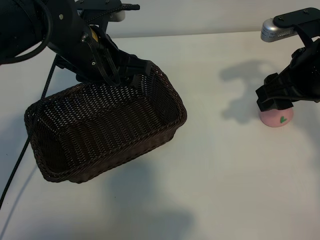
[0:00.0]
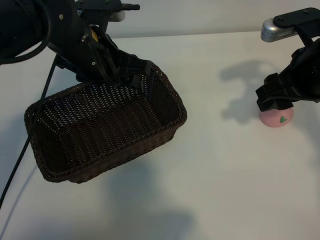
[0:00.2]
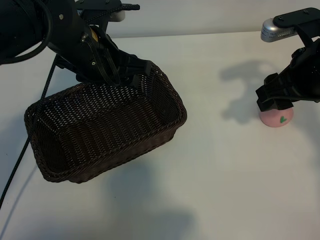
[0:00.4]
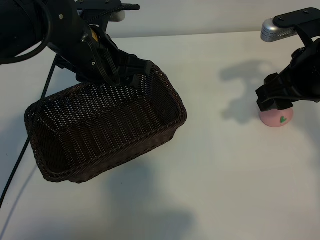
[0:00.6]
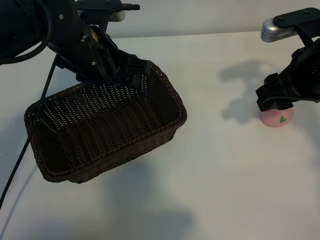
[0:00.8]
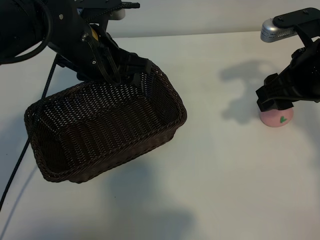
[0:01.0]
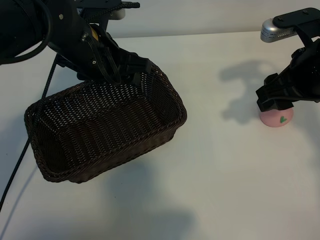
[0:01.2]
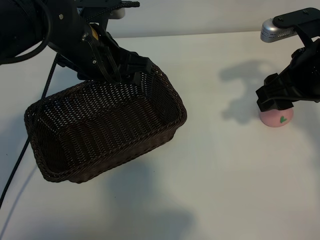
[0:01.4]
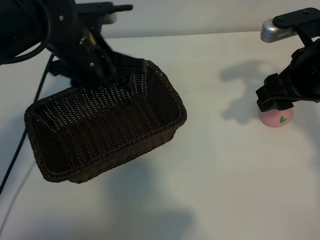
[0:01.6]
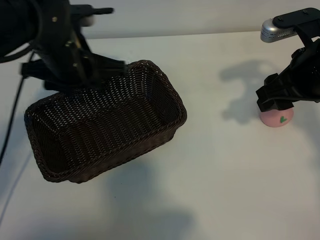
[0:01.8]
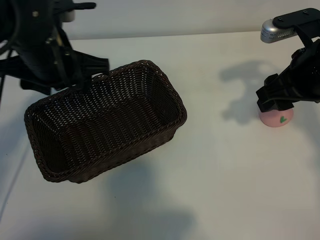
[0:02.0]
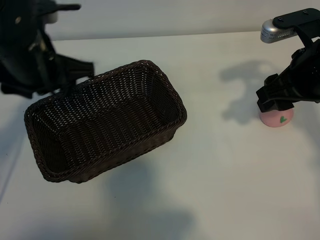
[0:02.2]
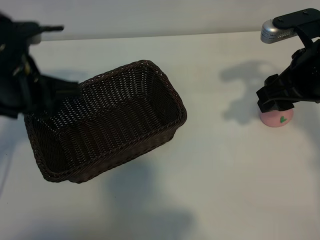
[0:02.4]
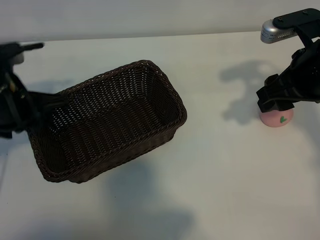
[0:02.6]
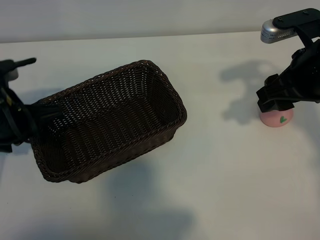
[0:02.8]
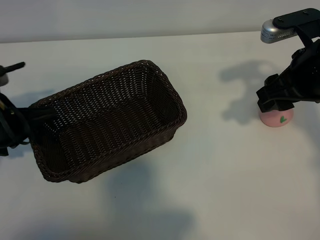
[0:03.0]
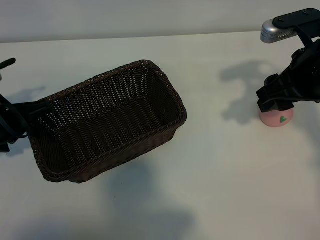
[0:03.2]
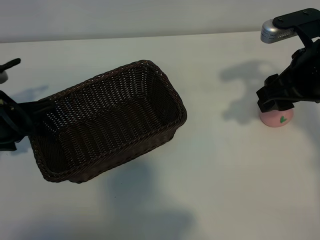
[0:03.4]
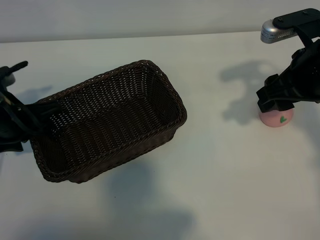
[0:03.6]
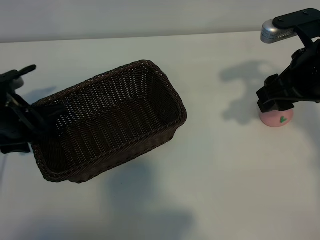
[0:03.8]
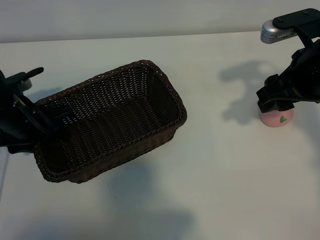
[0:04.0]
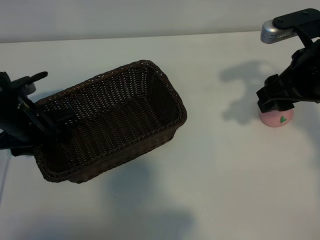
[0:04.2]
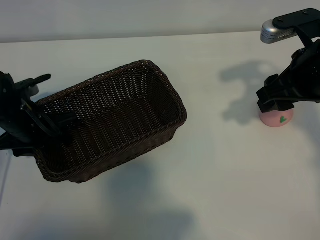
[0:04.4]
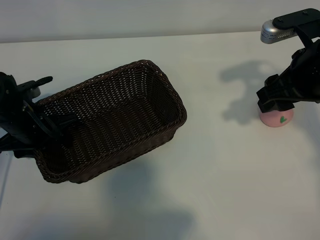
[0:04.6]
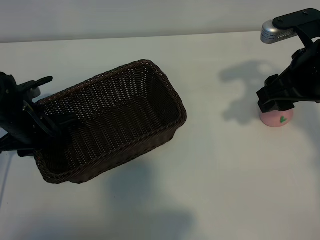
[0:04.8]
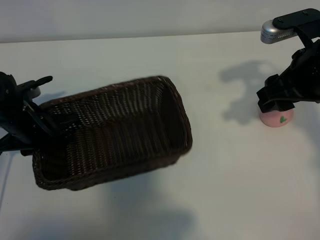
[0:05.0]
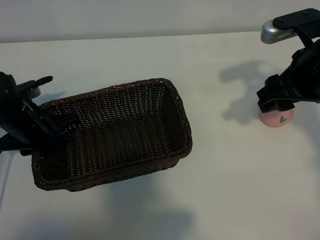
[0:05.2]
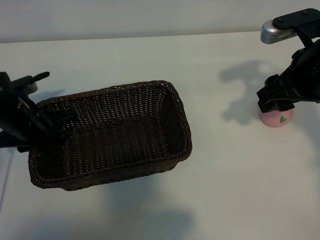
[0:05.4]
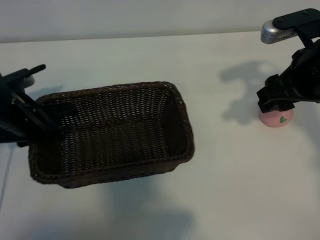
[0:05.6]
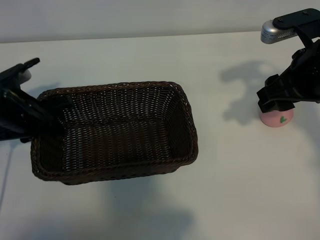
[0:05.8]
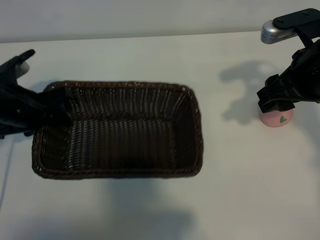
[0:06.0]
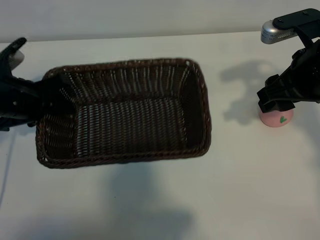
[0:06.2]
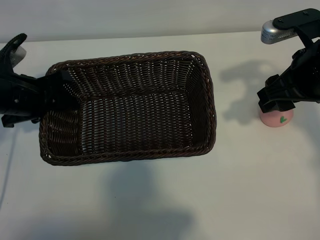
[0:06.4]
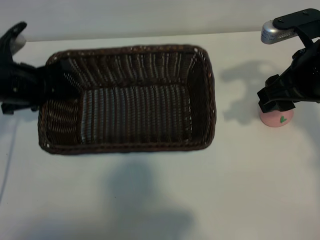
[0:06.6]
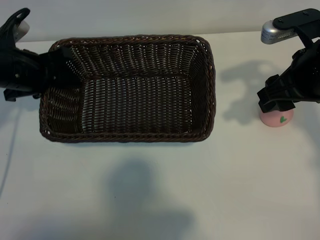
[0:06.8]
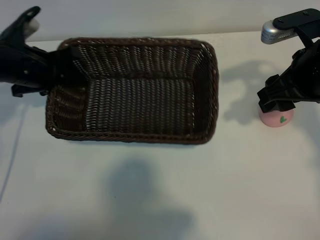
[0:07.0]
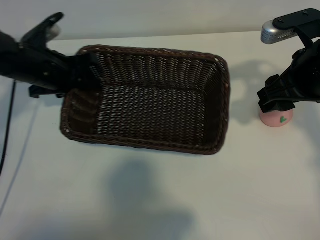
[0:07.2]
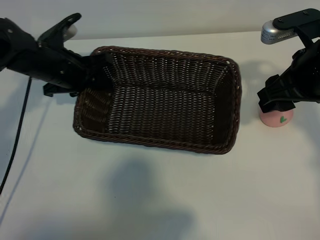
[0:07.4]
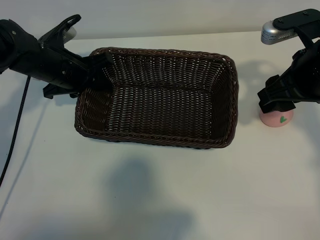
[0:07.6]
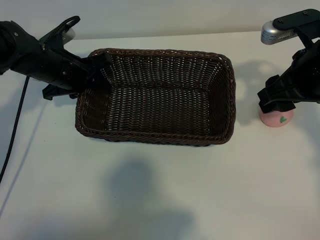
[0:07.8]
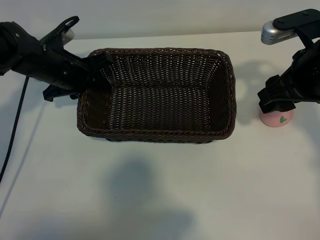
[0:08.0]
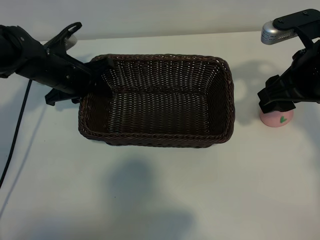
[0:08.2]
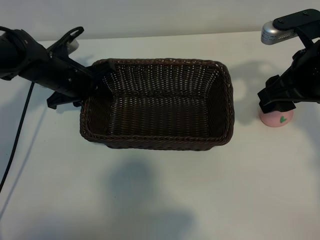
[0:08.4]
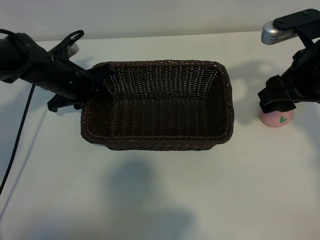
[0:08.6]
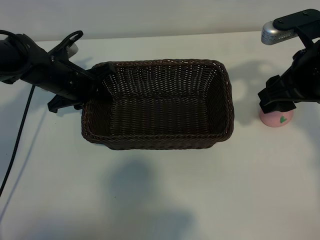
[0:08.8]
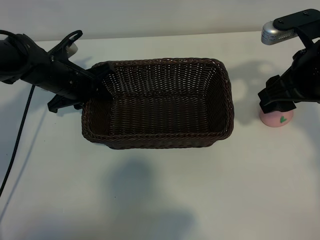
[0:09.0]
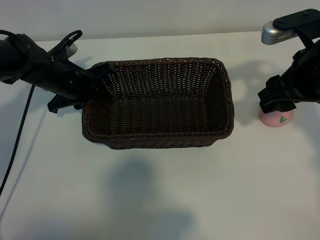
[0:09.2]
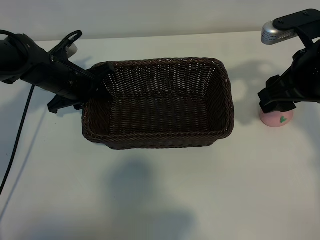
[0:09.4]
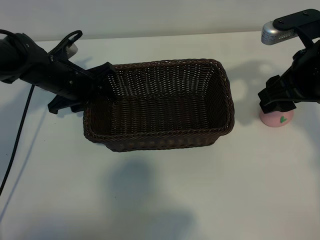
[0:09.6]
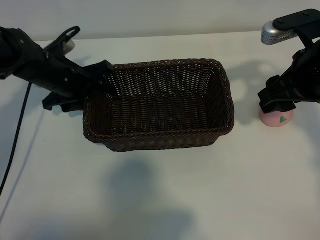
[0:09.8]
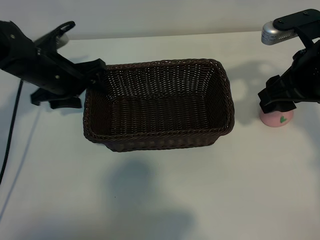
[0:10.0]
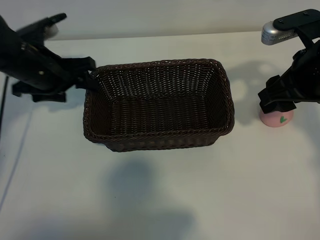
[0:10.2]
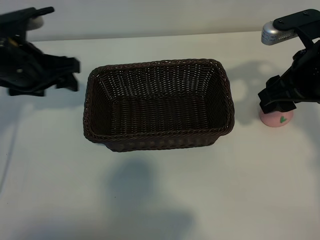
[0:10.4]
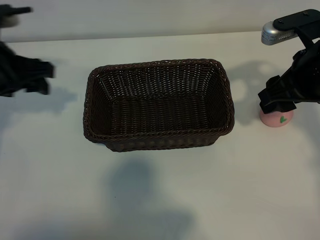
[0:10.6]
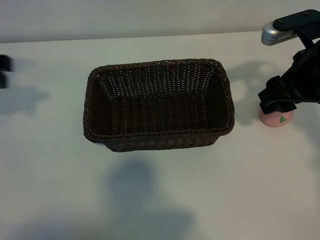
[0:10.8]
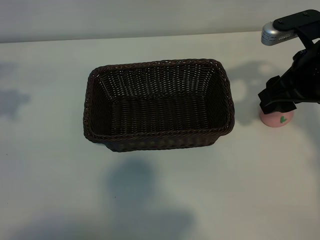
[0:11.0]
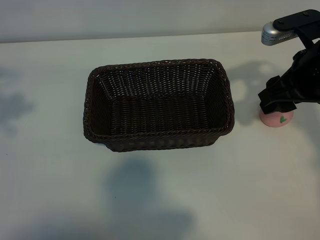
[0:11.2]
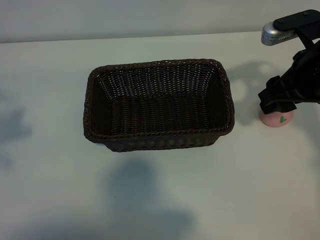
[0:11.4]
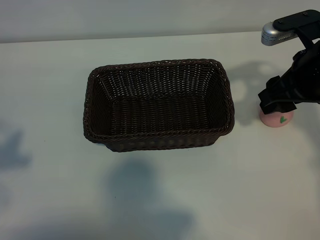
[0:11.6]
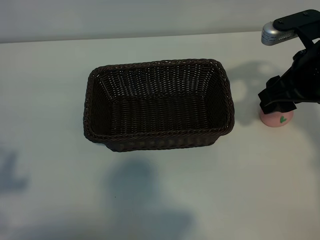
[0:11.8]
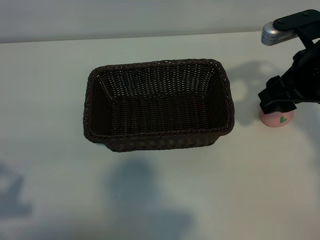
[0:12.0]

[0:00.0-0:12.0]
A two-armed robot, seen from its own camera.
Task of the whole recording: pick up the peach and put it into the basket.
Step, 0:01.0 to 0:05.0: Grasp the basket with left gripper.
Step, 0:05.4 to 0:10.0: Place the basket in the center of view with left gripper.

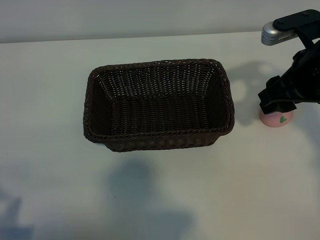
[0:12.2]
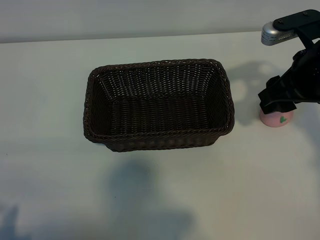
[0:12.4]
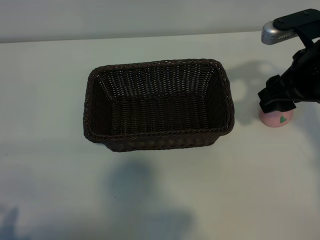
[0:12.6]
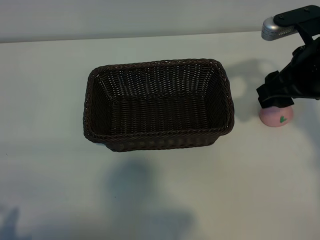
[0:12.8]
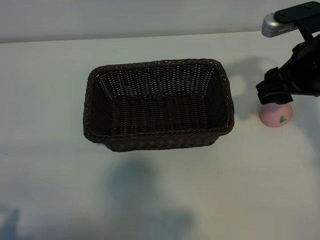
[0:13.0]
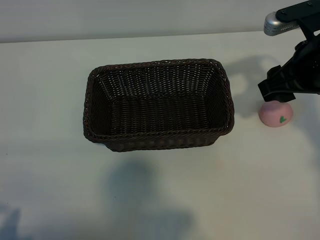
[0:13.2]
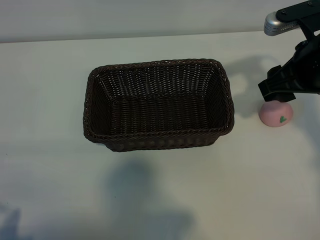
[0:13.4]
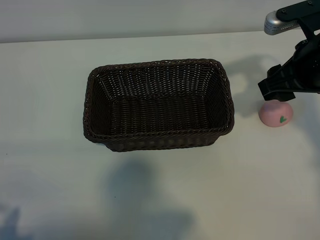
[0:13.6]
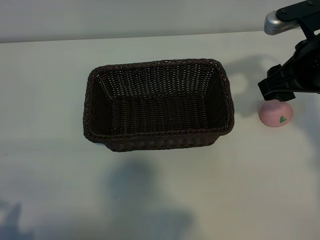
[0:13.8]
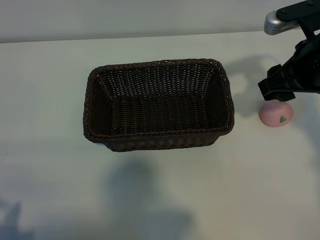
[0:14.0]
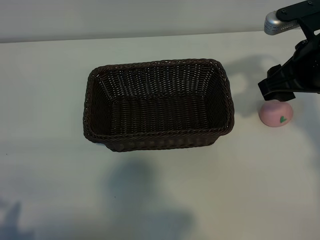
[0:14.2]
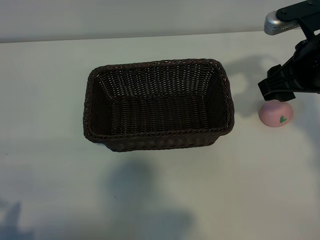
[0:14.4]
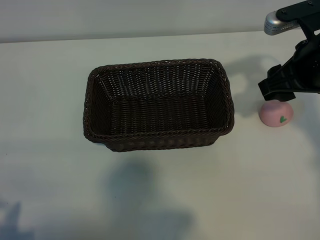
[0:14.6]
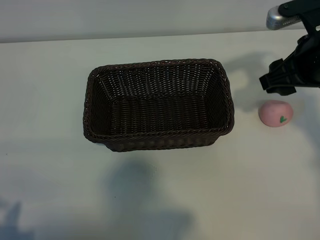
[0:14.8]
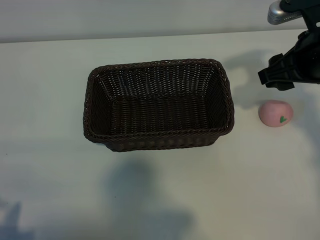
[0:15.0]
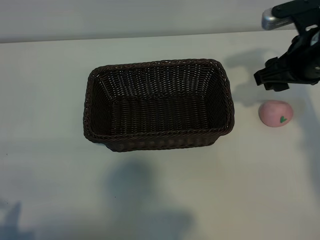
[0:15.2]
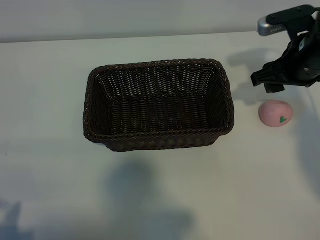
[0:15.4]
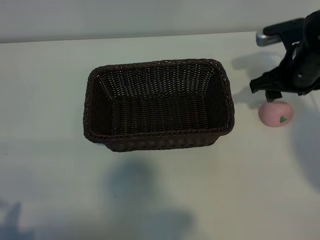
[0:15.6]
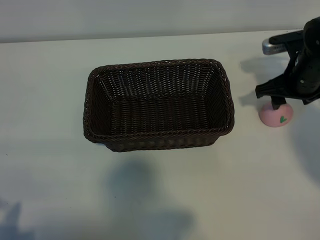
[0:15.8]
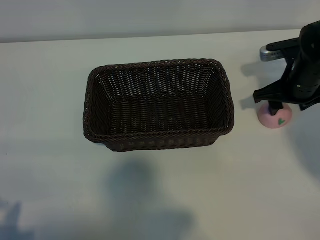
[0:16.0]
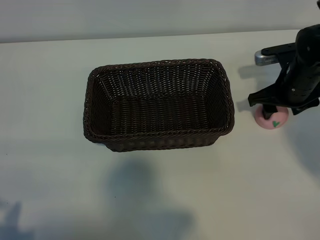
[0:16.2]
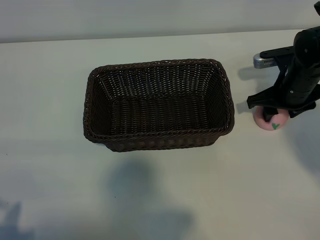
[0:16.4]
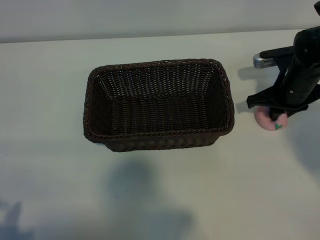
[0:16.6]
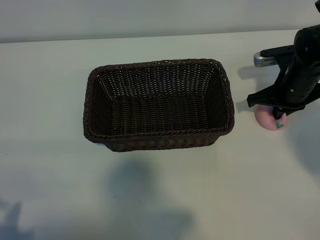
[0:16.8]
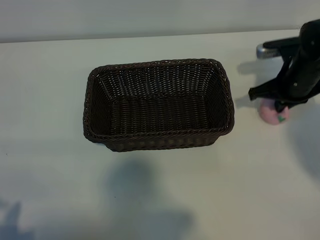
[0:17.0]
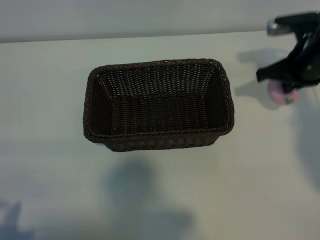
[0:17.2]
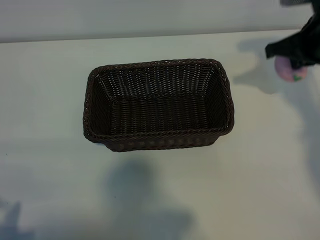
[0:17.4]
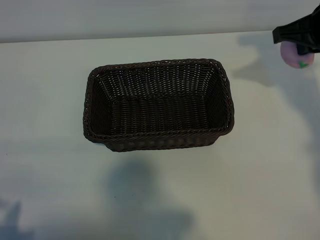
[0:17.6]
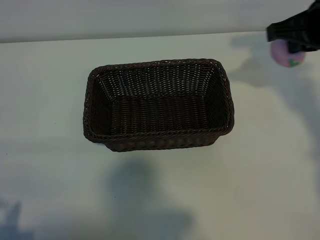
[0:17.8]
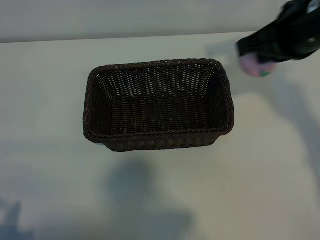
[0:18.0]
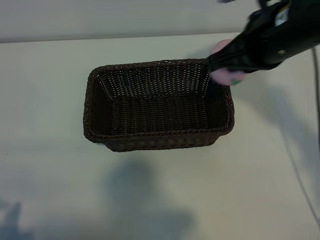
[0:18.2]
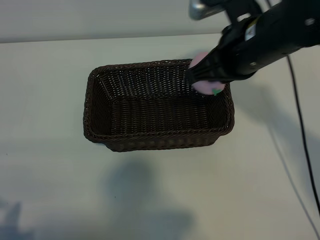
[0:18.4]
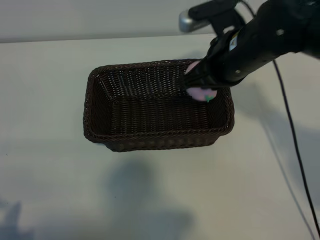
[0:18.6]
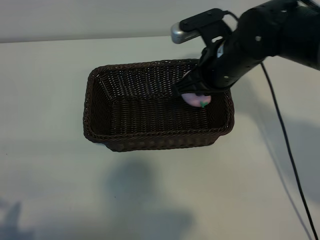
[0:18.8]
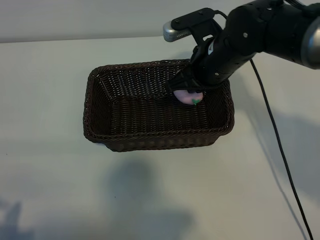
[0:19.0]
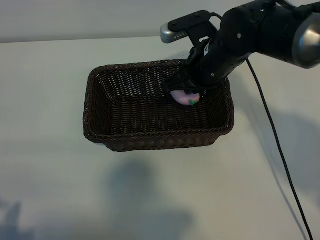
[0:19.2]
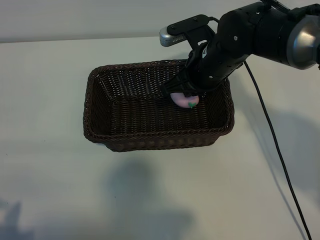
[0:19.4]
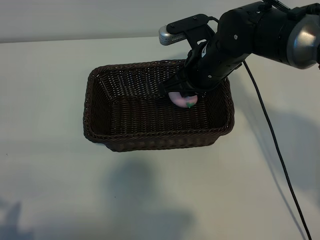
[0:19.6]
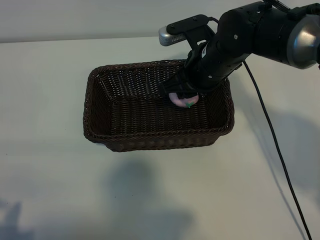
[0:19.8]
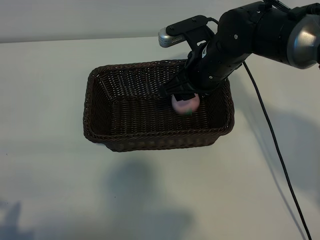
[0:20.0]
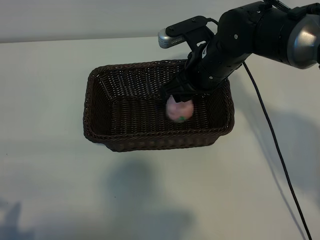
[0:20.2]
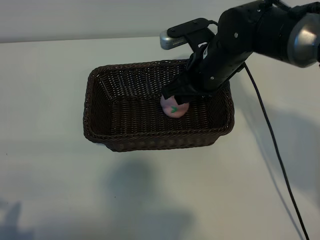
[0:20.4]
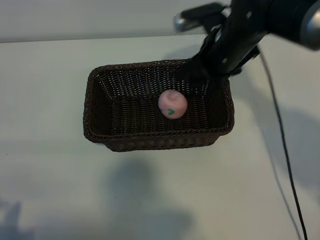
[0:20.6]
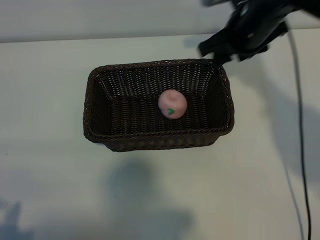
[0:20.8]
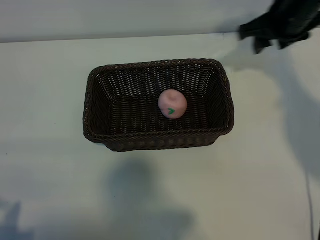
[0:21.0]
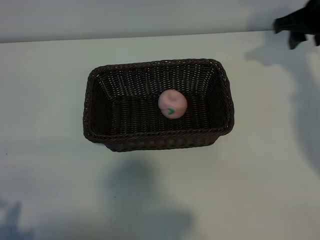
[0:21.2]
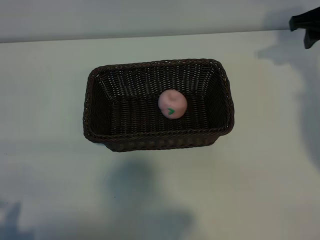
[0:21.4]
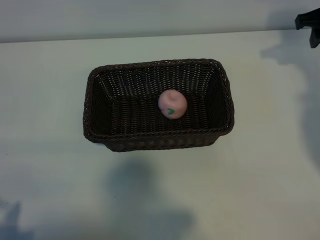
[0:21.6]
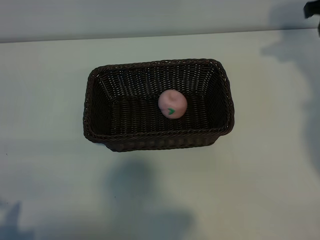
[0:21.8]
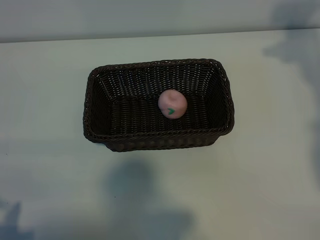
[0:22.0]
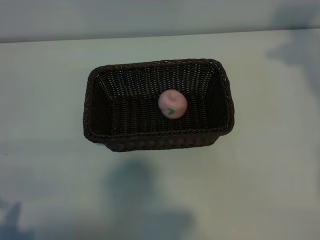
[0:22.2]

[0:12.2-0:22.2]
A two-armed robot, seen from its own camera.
Task of the whole recording: pick up the peach and put it into the basket.
Step, 0:12.2 to 0:16.6: Grasp the peach with right gripper.
Step, 0:16.8 to 0:20.2: Place the peach in the basket with right gripper.
